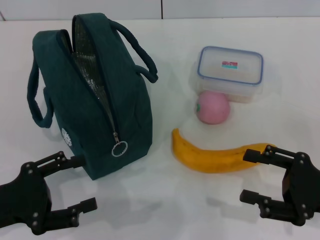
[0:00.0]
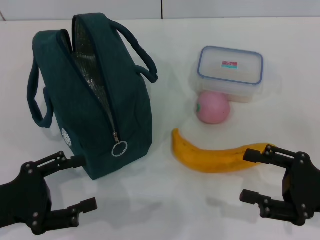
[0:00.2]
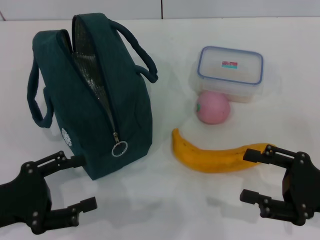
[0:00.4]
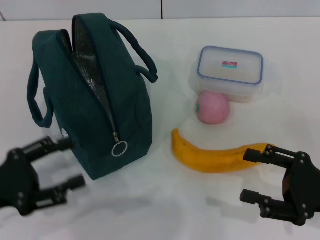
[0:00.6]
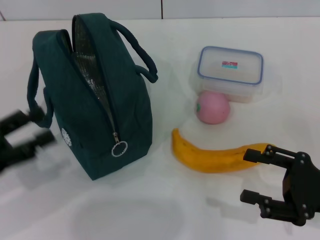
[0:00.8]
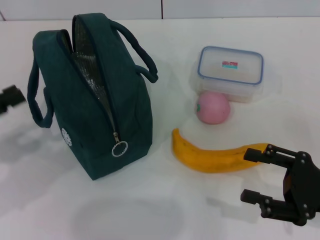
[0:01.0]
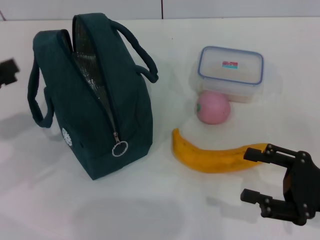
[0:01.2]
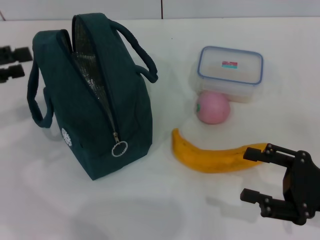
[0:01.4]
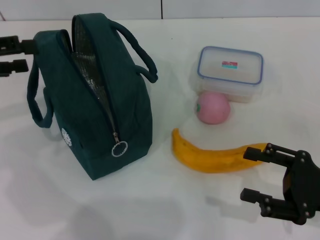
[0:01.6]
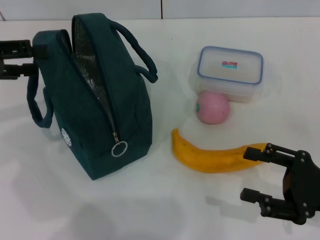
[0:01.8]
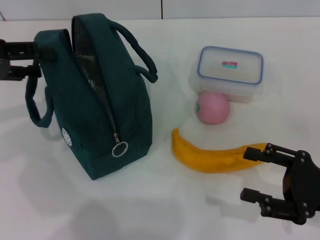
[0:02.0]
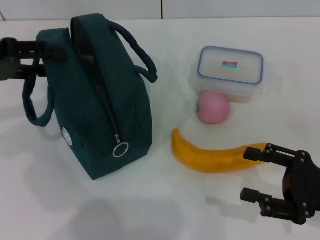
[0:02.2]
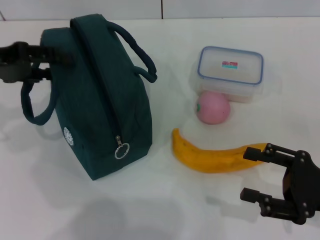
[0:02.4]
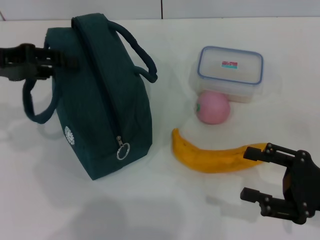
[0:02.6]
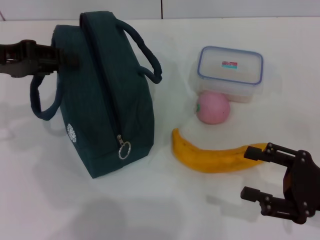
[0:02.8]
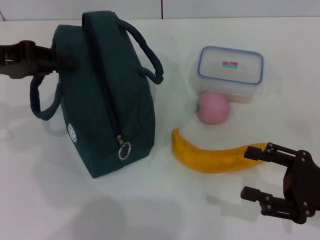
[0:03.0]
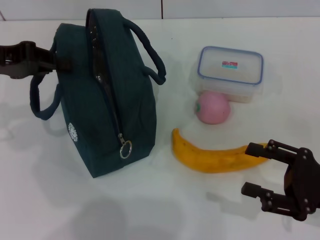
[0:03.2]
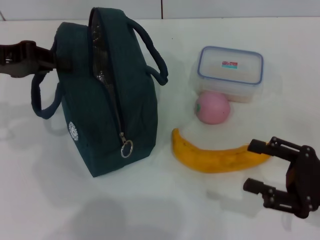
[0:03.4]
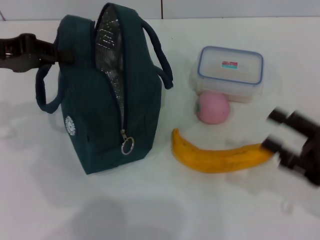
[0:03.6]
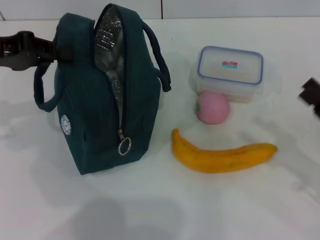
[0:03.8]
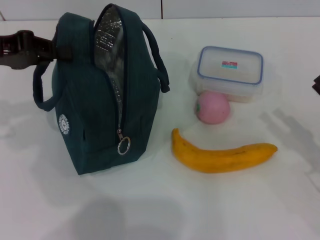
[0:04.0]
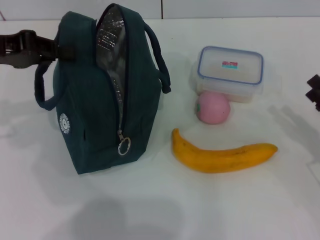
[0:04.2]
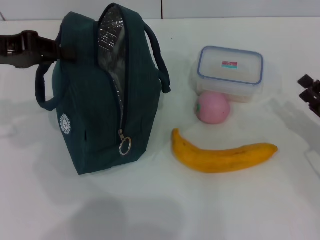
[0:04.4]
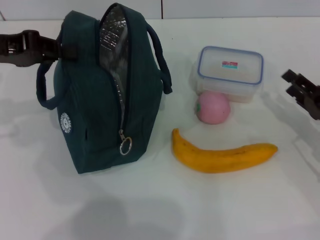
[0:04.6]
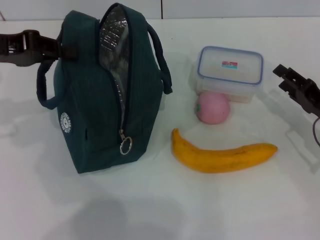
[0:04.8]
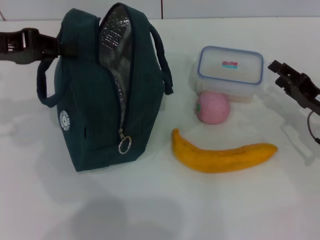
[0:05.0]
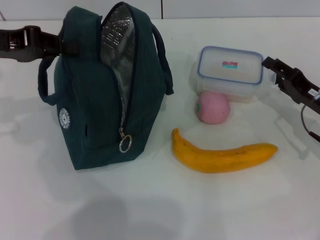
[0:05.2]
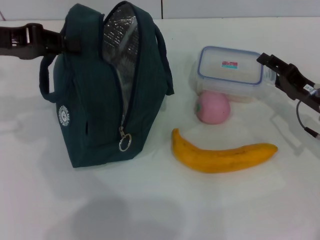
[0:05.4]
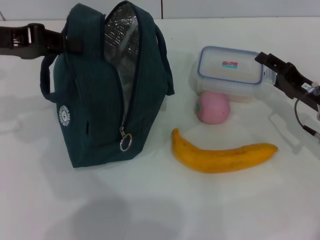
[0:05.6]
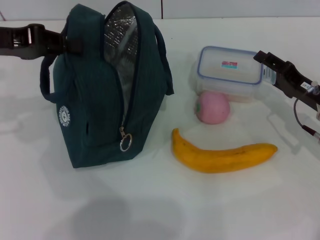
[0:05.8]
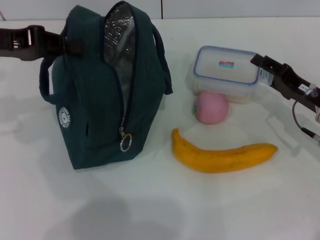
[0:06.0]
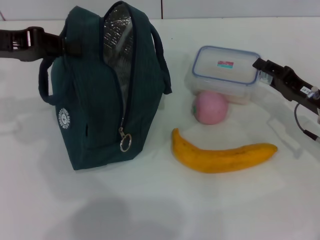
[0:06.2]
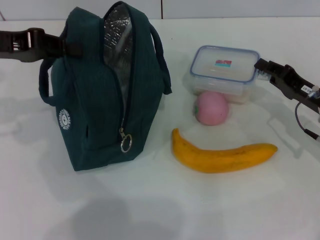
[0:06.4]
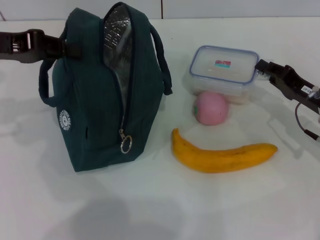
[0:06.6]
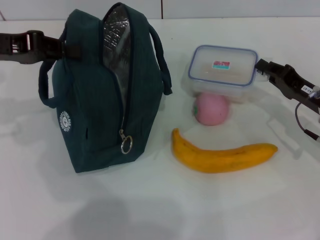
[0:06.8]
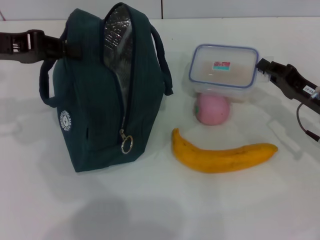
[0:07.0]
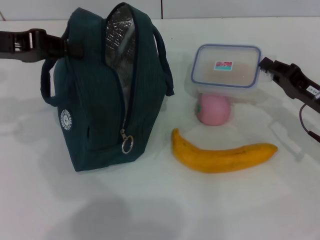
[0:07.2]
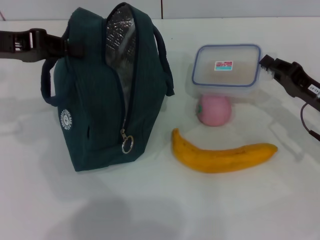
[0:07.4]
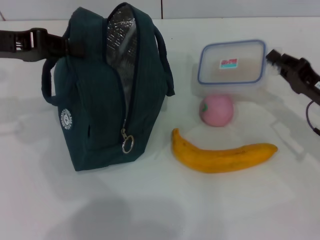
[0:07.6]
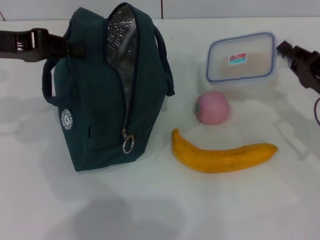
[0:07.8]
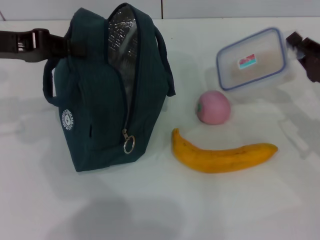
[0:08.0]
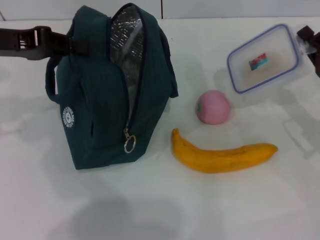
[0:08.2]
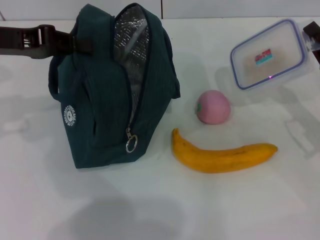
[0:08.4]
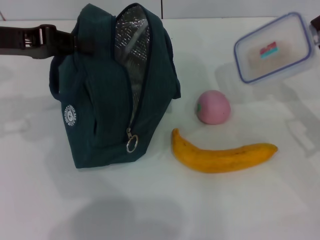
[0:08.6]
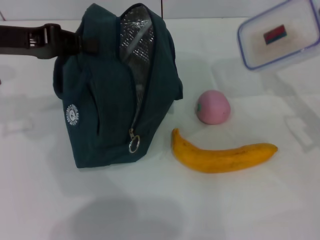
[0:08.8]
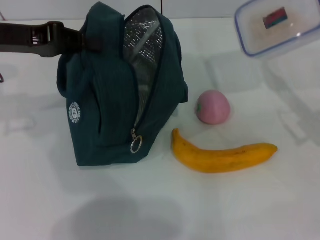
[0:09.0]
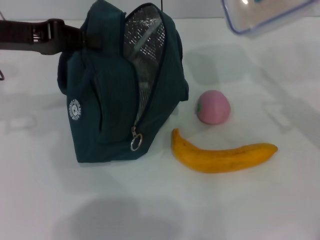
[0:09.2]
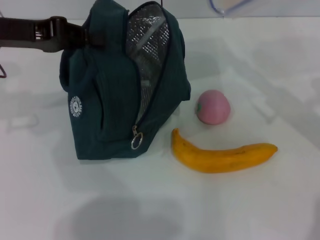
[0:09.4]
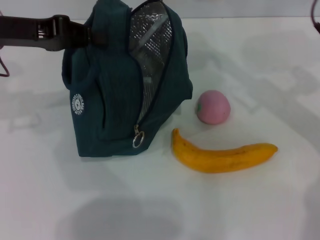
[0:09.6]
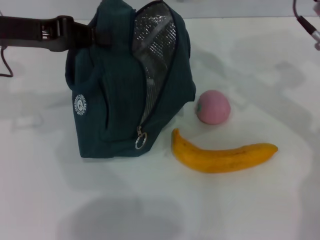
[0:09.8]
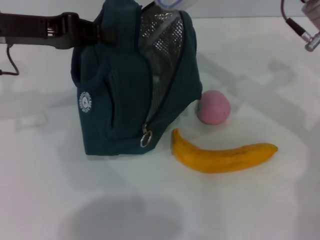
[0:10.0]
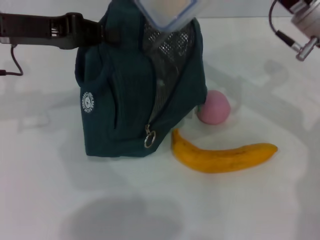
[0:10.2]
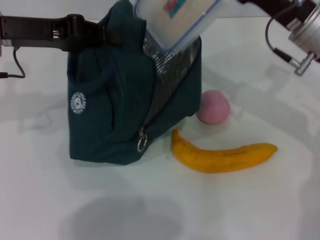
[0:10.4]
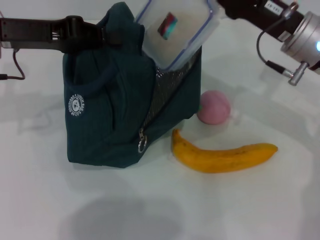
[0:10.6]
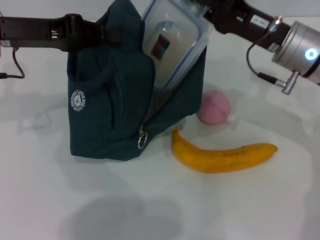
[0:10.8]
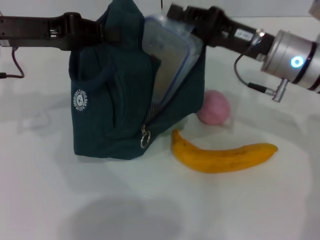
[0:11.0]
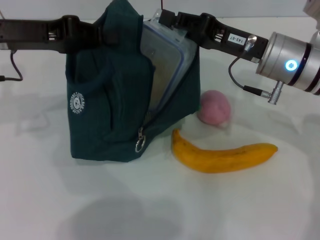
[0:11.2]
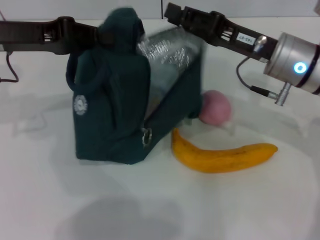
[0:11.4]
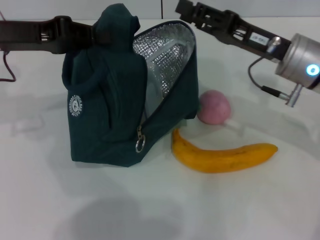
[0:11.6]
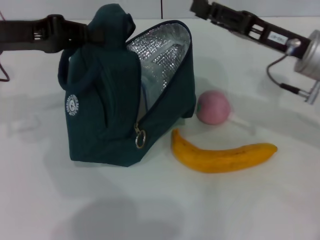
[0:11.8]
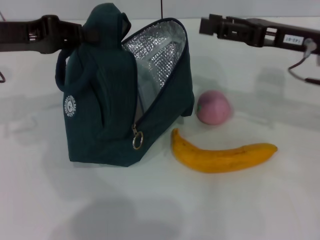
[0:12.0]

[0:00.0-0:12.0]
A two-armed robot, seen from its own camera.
Step, 0:00.0 to 0:03.8: Hold the lunch bag with your left hand.
Step, 0:04.0 to 0:06.6: Pick up the lunch box with your right hand.
Step, 0:06.8 to 0:11.6: Place the lunch box into the lunch bag with your right hand.
0:00.0 to 0:01.6: The left gripper shifts approximately 20 cm forward and upward.
0:01.6 to 0:03.0: The left gripper moves approximately 5 cm, and closes.
0:03.0 to 0:04.4: The right gripper heads forward, covering roughly 5 cm, while the left gripper closes up.
0:04.4 to 0:06.0: The right gripper shifts some 10 cm forward and to the left.
0:06.0 to 0:07.6: The right gripper closes up.
0:07.6 to 0:09.0: The right gripper travels upward by about 5 cm.
0:09.0 to 0:10.4: The right gripper heads to the left, forward and upward, covering some 15 cm.
0:10.4 to 0:12.0: The right gripper opens up.

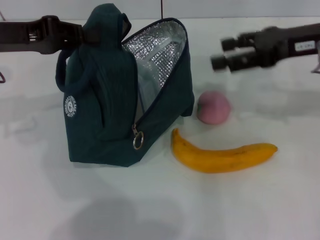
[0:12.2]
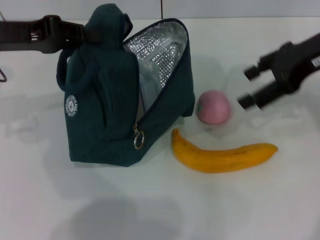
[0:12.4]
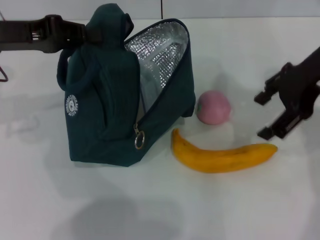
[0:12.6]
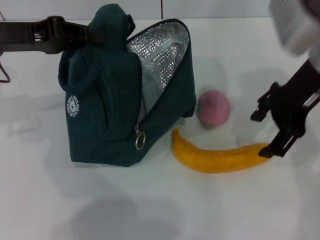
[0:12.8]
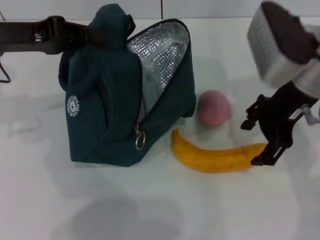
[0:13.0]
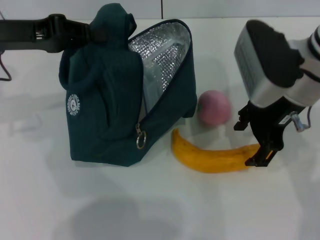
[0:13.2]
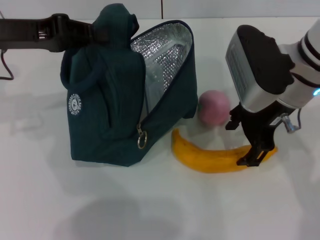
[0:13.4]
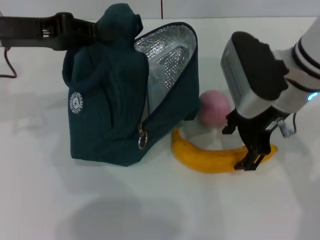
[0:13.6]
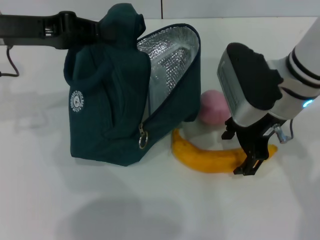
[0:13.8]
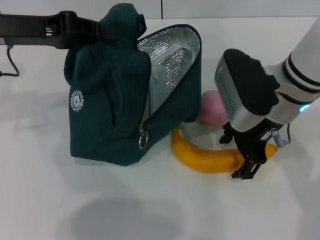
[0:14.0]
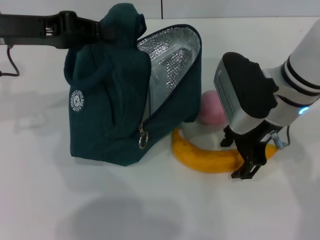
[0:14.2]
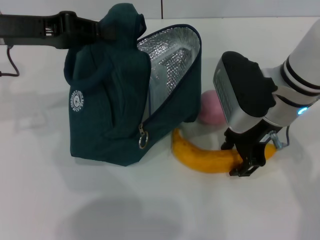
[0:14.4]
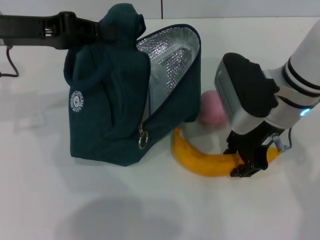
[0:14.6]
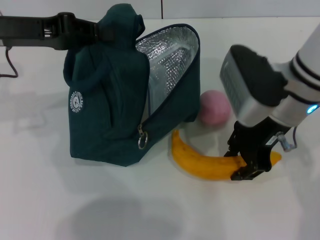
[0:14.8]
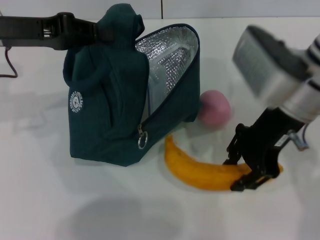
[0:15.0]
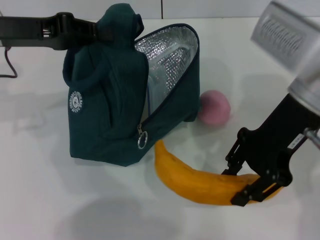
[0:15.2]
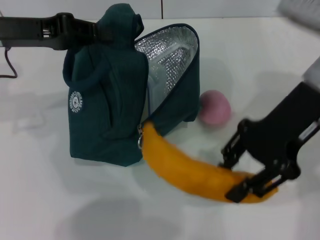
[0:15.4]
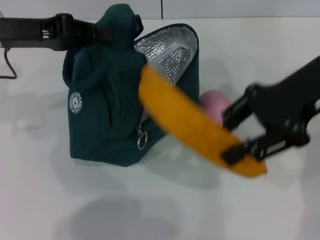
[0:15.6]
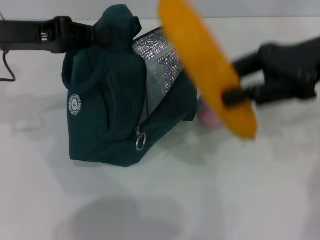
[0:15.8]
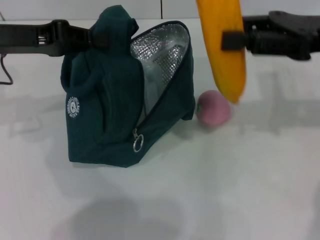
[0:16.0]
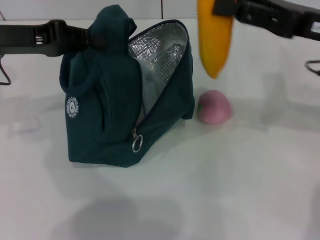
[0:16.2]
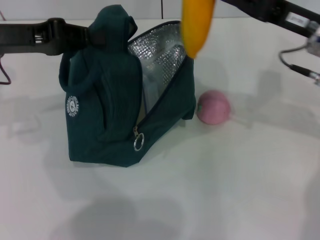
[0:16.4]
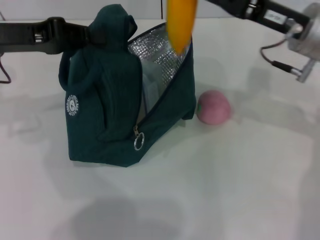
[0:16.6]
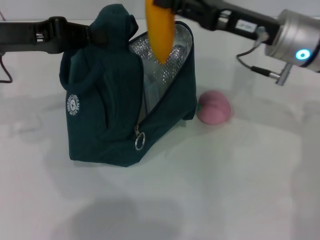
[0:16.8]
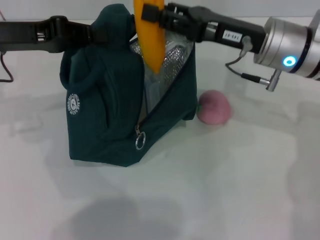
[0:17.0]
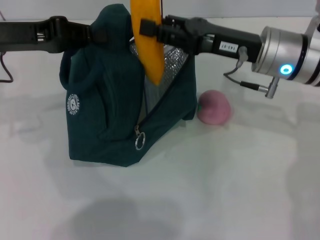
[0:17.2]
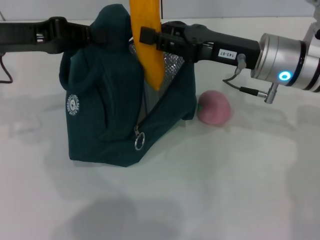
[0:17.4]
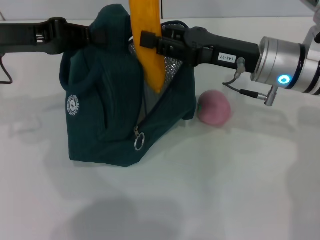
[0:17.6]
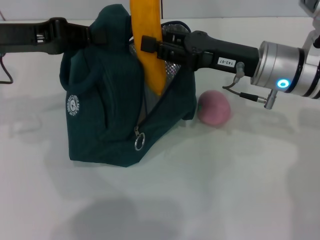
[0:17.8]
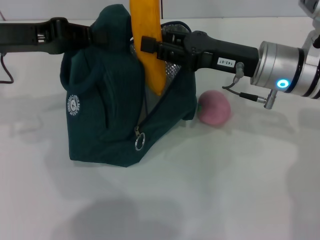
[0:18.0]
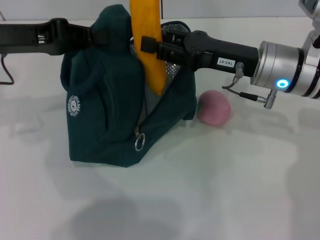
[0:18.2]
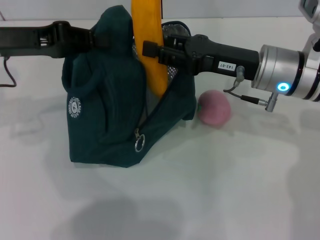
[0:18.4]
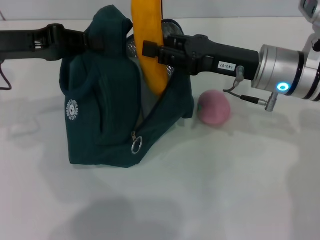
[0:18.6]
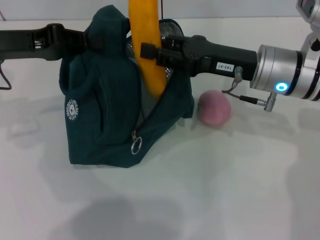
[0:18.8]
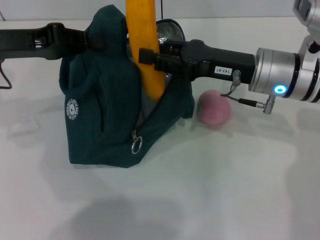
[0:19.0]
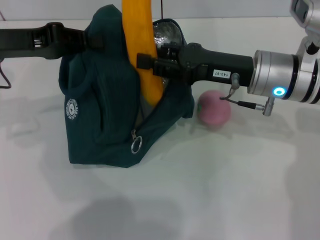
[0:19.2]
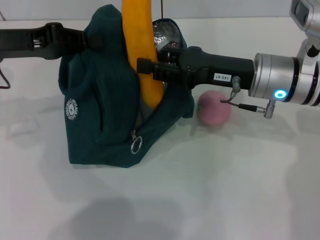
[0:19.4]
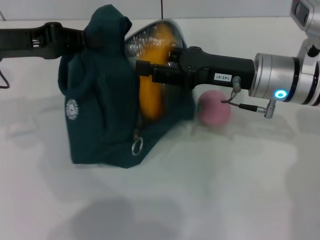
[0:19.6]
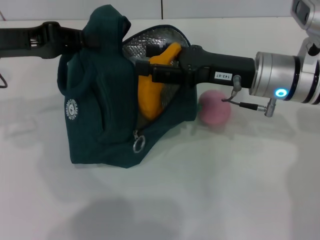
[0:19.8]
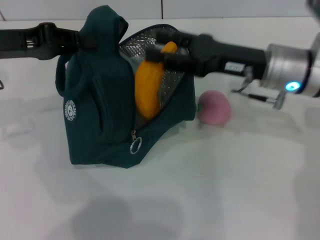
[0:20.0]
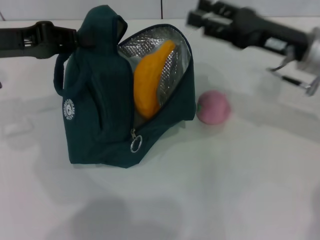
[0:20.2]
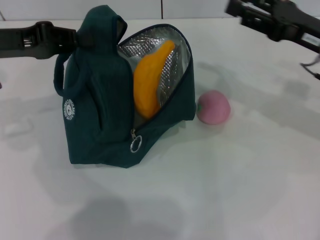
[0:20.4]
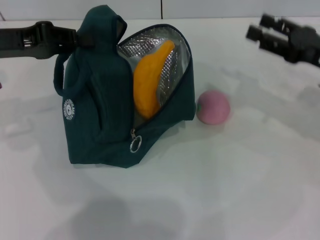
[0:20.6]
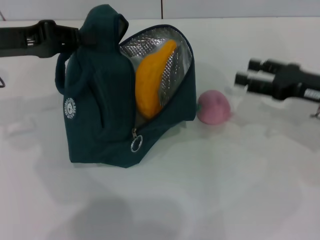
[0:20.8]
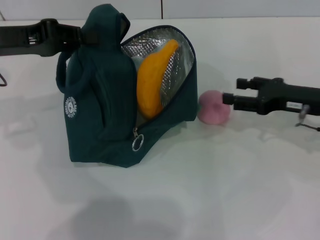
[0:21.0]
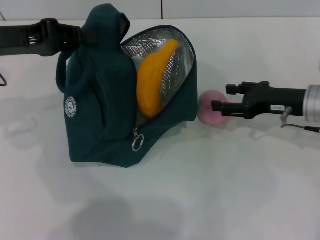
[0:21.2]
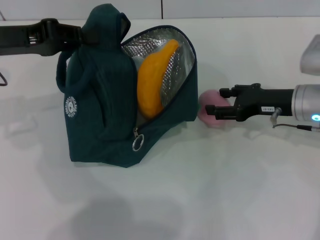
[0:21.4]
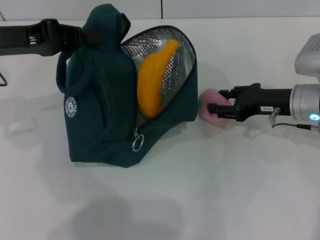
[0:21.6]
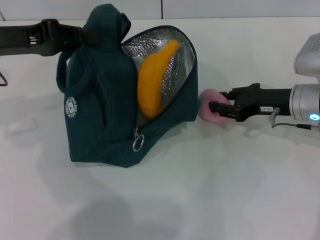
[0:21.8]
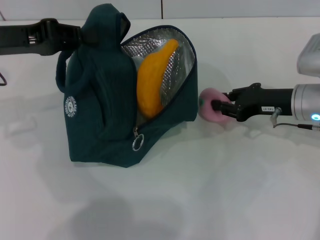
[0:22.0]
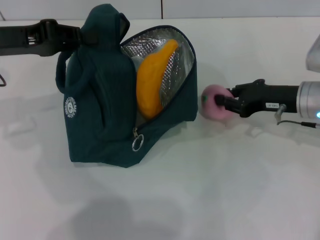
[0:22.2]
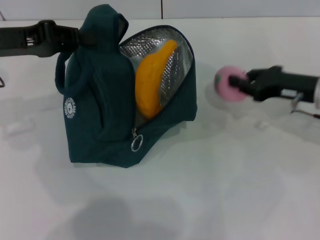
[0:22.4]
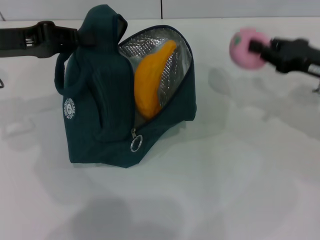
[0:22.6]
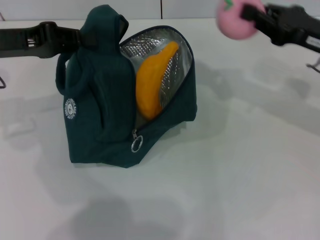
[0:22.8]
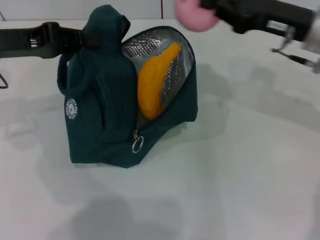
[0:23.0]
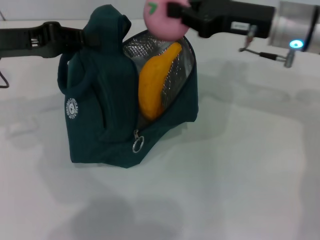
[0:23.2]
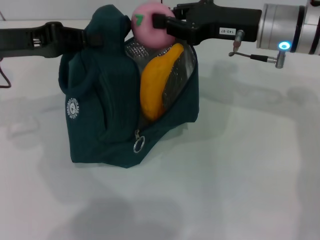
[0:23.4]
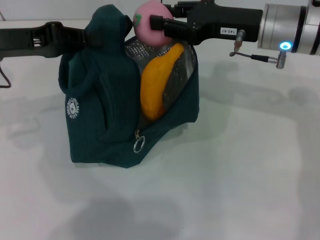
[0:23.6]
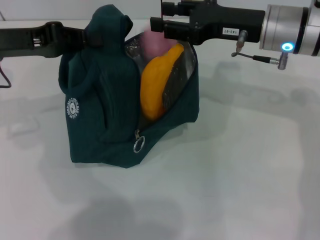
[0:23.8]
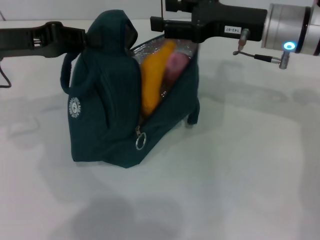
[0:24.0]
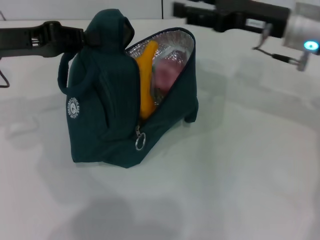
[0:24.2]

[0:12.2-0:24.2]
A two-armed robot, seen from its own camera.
Step, 0:12.2 to 0:14.4: Take the banana with your right hand.
Step, 0:14.6 to 0:20.0: Put the banana into the lunch bag with your right hand.
Step, 0:20.2 to 0:22.0: Grab the peach with your right hand.
0:12.2 to 0:13.8: The right gripper goes roughly 10 cm to the left and downward.
0:13.8 to 0:15.2: The right gripper changes place by some 5 cm, and closes up.
0:15.2 to 0:16.6: The right gripper ends up about 5 cm from where it was.
0:16.6 to 0:18.2: The right gripper moves about 5 cm.
0:18.2 to 0:19.8: Both grippers stay about where they are.
0:19.8 to 0:21.2: The right gripper heads to the right, covering some 10 cm.
0:21.2 to 0:22.6: The right gripper moves about 5 cm, and closes up.
0:22.6 to 0:24.2: The right gripper moves to the left and upward, about 10 cm, and opens up.
